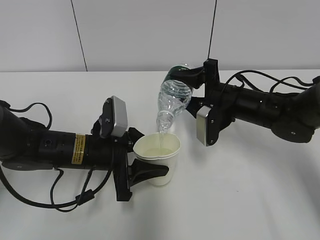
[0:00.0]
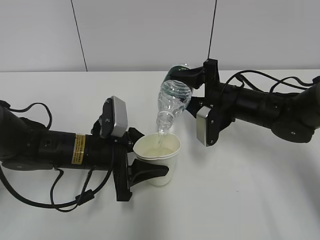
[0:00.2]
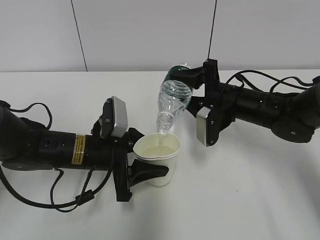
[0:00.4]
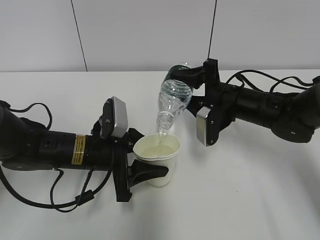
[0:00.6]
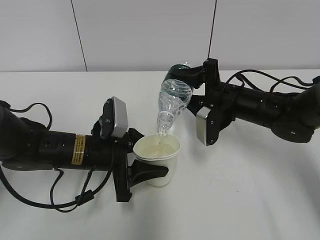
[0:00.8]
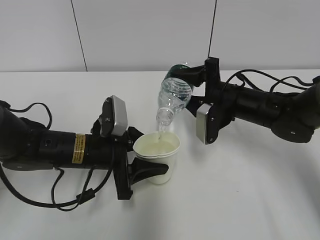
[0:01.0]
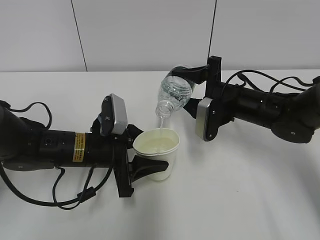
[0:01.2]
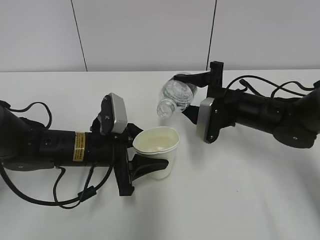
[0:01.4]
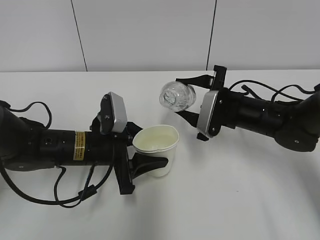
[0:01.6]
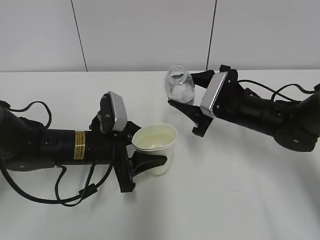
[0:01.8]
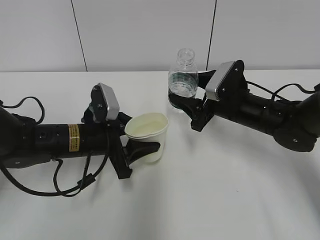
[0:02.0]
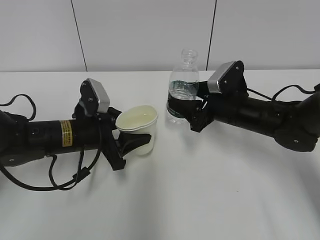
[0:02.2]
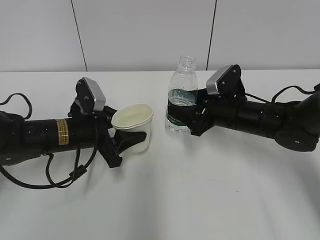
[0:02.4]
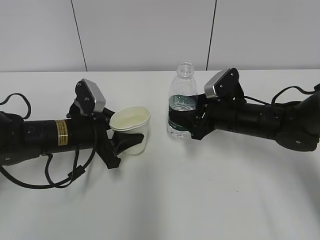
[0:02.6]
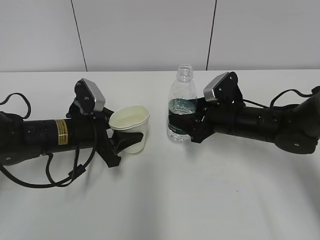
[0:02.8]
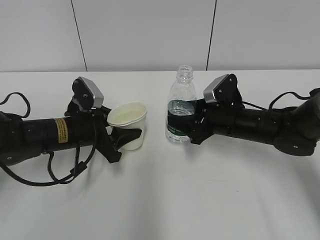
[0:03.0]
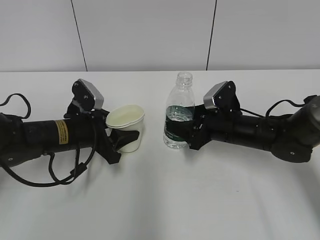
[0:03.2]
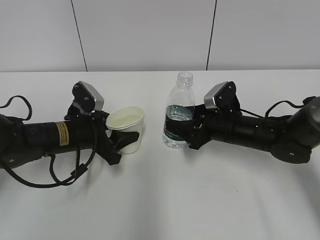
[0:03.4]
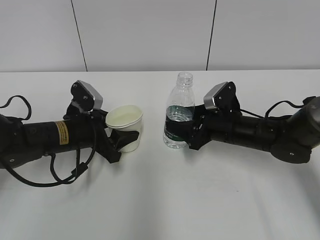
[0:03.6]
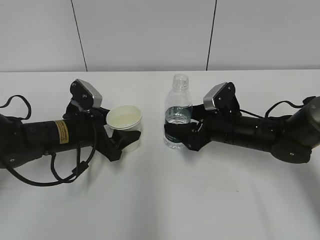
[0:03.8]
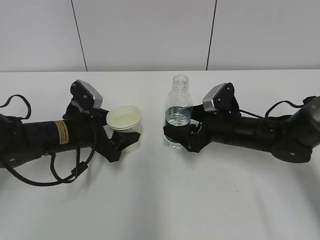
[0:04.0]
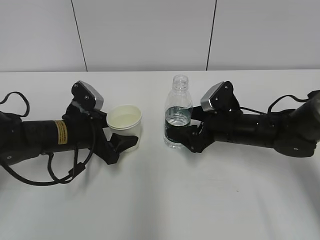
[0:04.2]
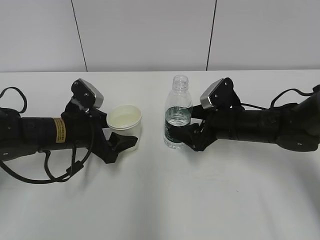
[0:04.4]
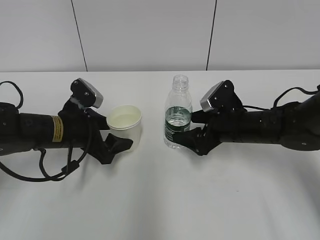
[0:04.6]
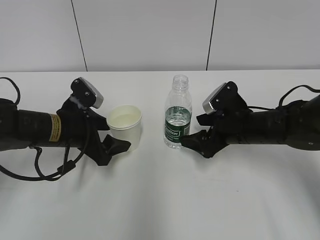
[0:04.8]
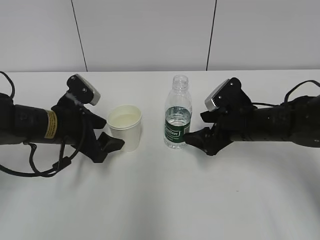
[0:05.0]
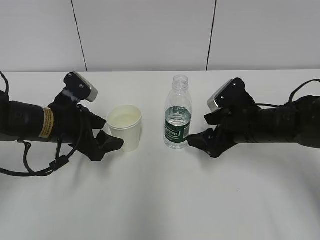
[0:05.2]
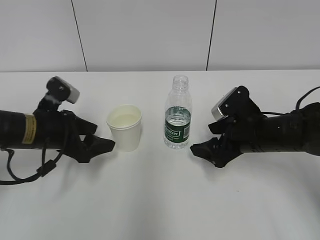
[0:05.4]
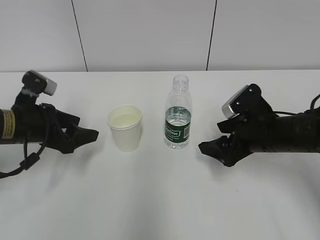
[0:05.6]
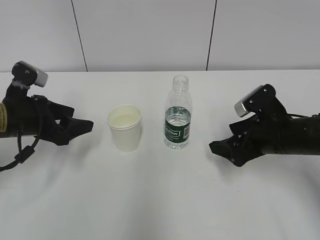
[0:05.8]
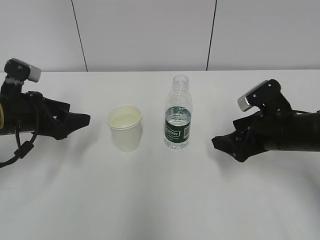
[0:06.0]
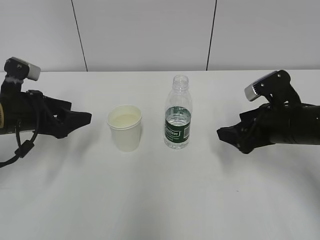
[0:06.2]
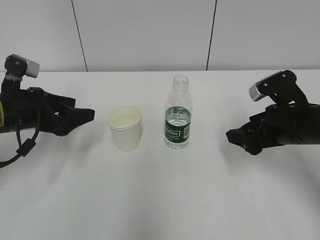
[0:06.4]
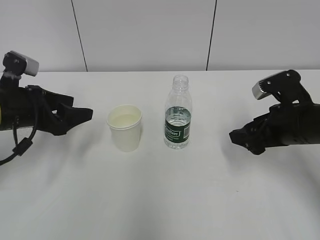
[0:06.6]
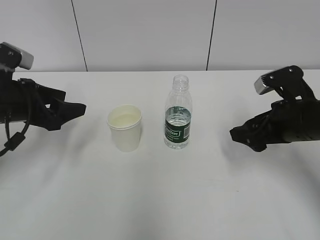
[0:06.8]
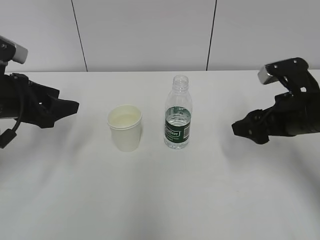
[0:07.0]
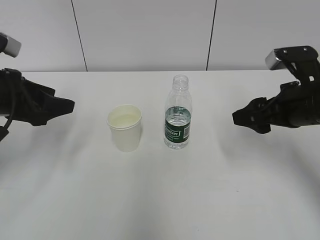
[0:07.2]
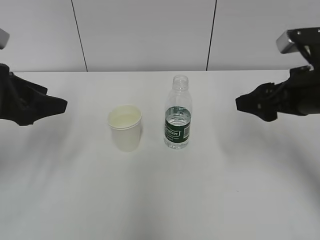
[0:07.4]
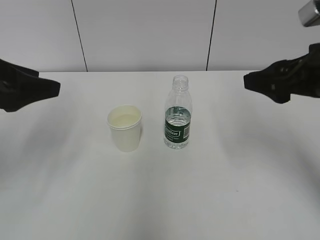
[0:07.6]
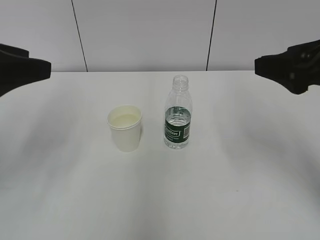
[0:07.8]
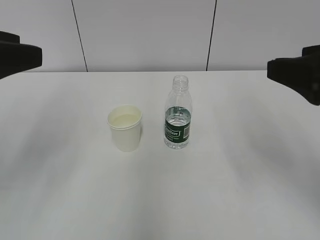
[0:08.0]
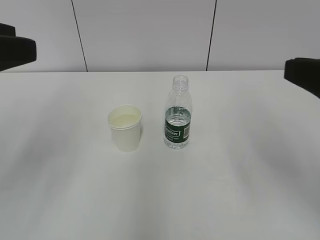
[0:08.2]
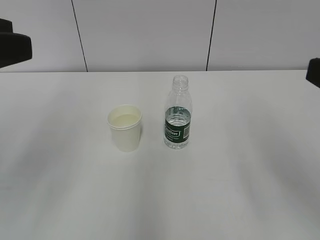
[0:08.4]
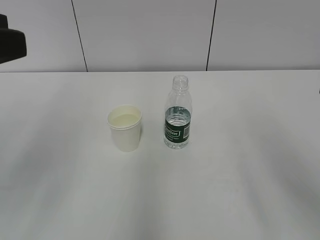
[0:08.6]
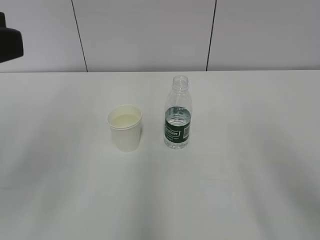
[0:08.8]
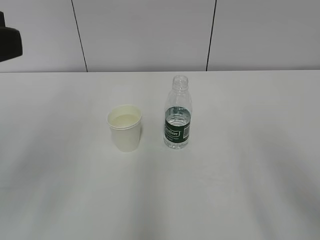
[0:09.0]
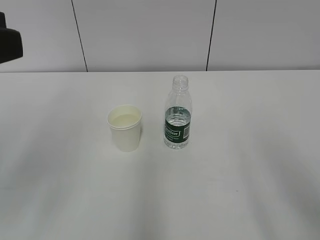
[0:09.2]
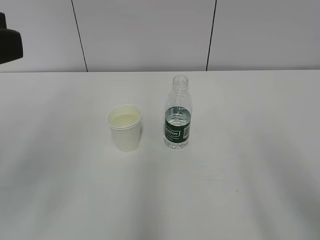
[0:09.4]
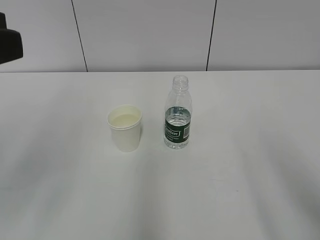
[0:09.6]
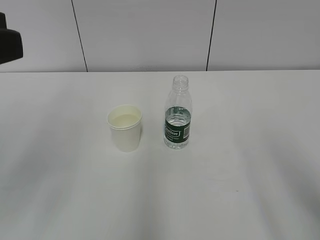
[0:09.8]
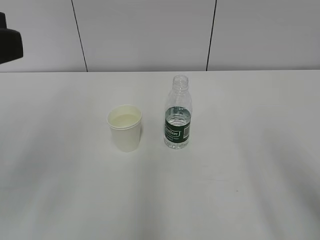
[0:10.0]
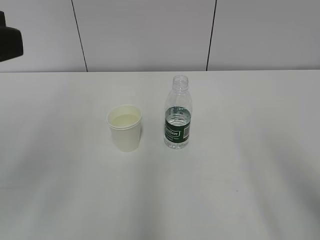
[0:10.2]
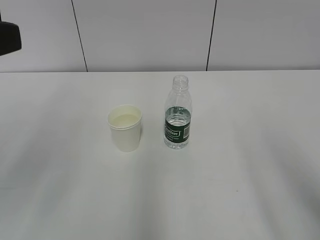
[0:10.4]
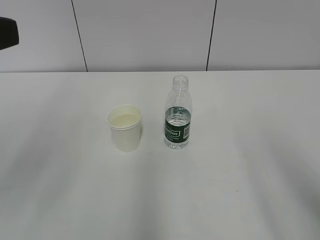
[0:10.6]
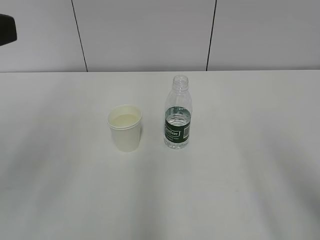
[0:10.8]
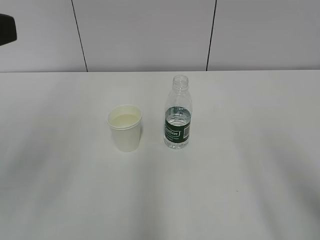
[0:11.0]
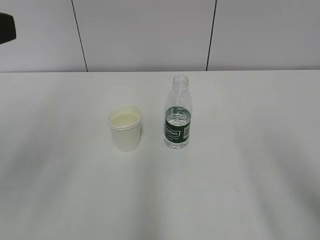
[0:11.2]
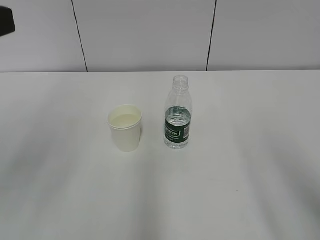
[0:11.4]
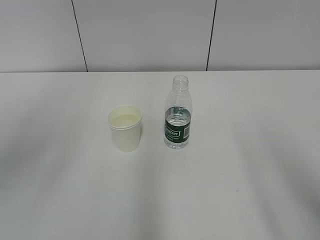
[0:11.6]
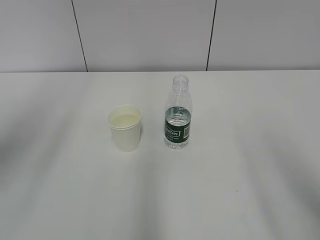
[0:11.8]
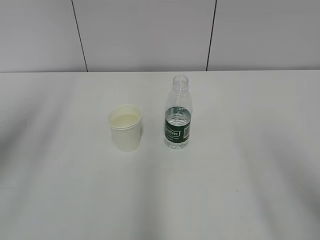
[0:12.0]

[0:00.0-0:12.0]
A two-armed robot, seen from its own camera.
0:01.6 to 0:03.0: The left gripper changes place by about 5 cm.
0:03.0 to 0:04.4: The left gripper opens up. Meanwhile the right gripper opens up.
0:04.4 to 0:06.0: The left gripper travels to the left by about 10 cm; the right gripper heads backward and to the right, covering some 10 cm.
0:06.0 to 0:07.6: The right gripper travels upward by approximately 15 cm. Meanwhile the left gripper travels upward and backward by some 15 cm.
0:07.6 to 0:09.0: The left gripper heads backward and upward, covering some 15 cm; the right gripper is displaced backward by approximately 20 cm.
0:10.4 to 0:12.0: The left gripper changes place by roughly 5 cm.

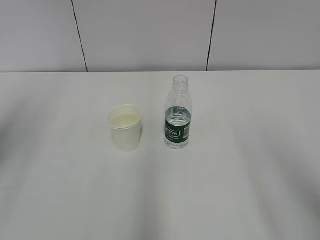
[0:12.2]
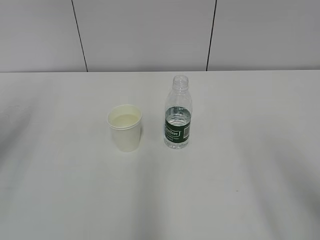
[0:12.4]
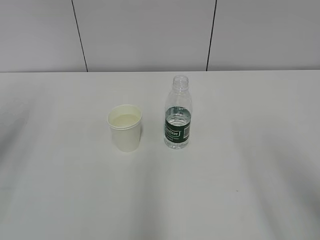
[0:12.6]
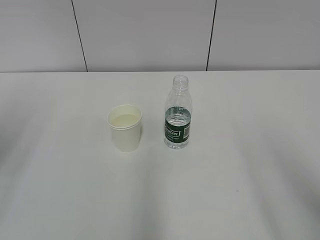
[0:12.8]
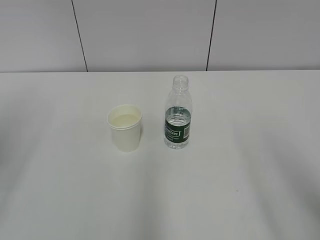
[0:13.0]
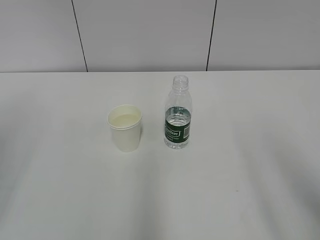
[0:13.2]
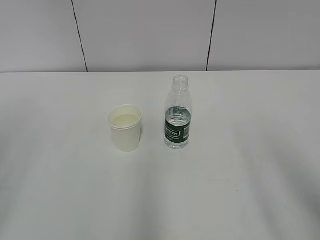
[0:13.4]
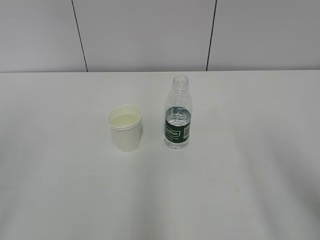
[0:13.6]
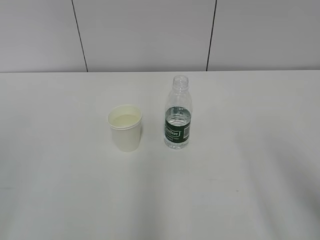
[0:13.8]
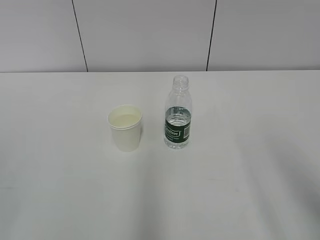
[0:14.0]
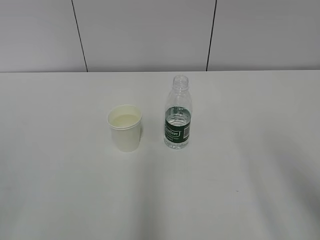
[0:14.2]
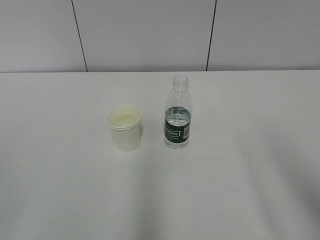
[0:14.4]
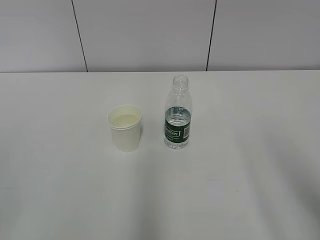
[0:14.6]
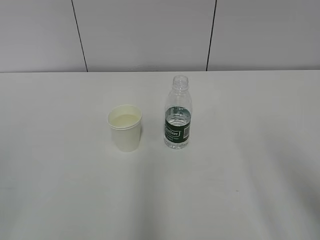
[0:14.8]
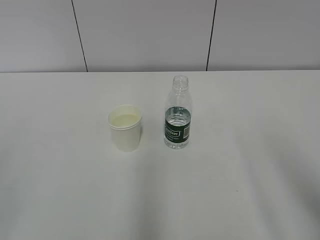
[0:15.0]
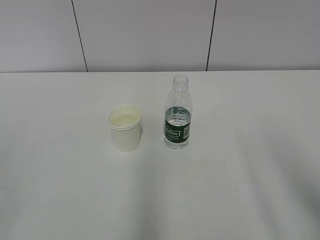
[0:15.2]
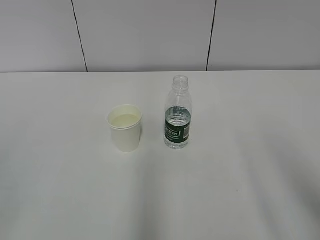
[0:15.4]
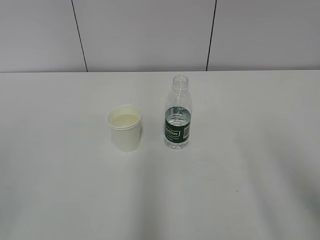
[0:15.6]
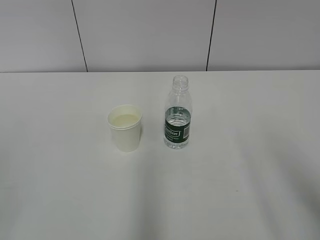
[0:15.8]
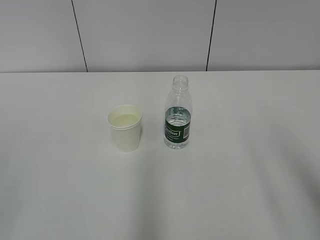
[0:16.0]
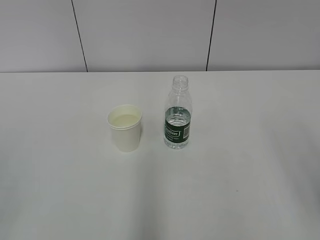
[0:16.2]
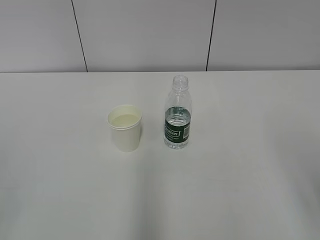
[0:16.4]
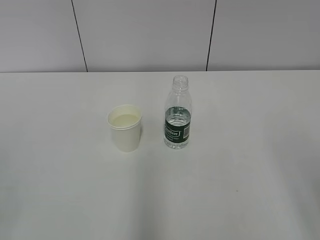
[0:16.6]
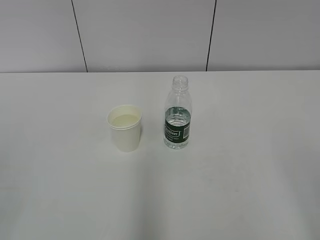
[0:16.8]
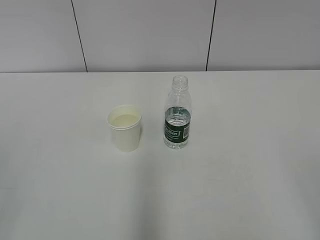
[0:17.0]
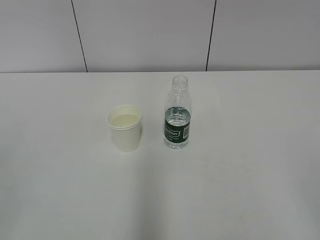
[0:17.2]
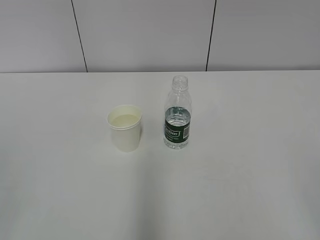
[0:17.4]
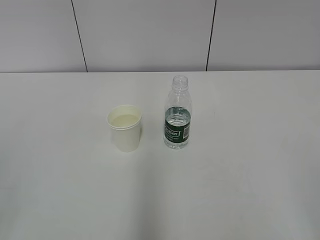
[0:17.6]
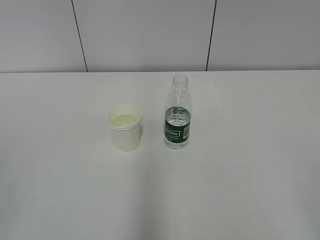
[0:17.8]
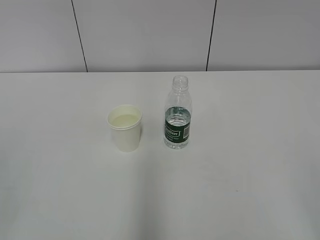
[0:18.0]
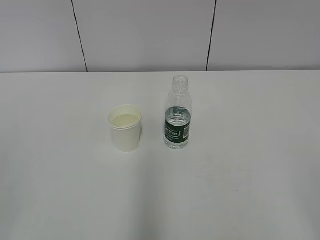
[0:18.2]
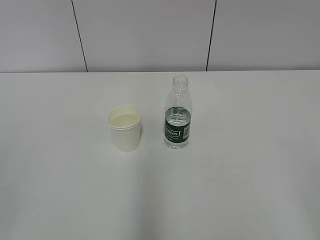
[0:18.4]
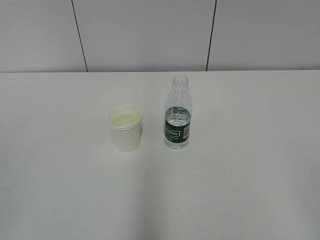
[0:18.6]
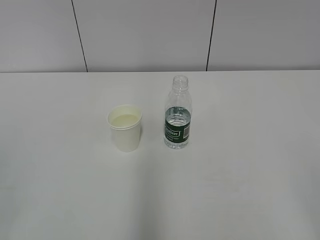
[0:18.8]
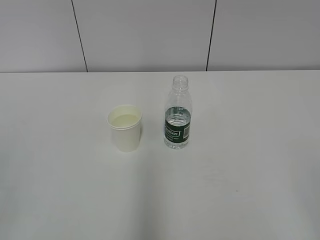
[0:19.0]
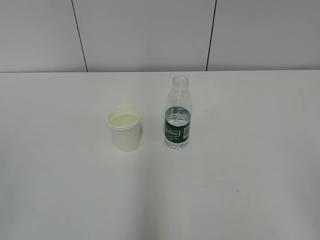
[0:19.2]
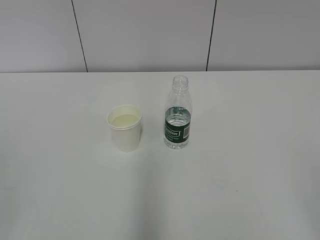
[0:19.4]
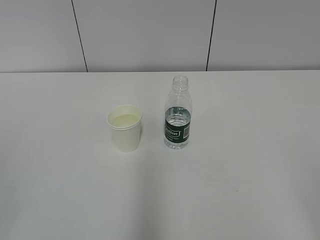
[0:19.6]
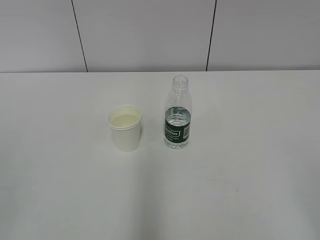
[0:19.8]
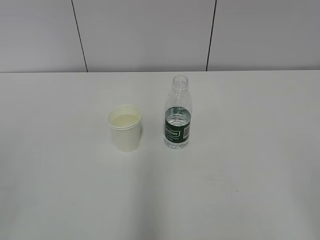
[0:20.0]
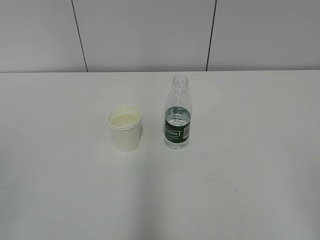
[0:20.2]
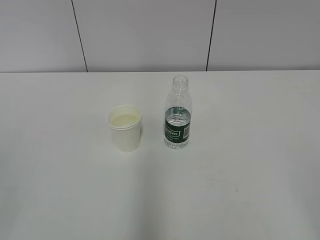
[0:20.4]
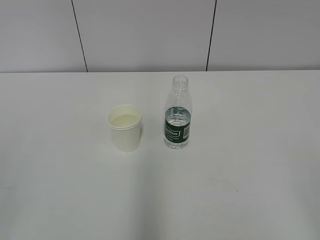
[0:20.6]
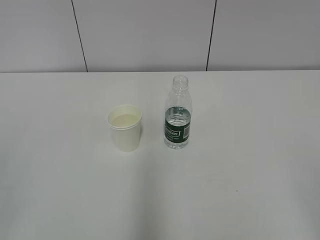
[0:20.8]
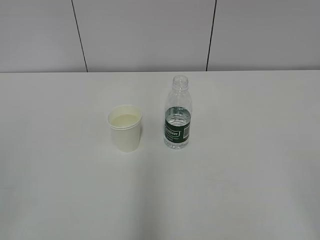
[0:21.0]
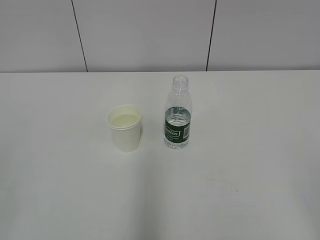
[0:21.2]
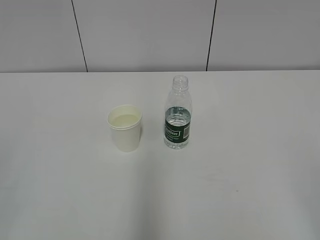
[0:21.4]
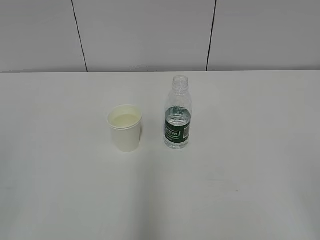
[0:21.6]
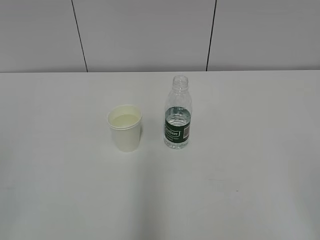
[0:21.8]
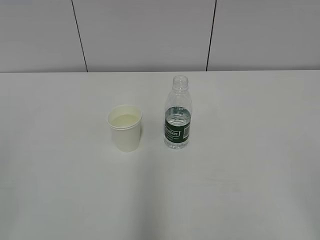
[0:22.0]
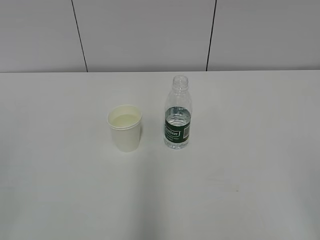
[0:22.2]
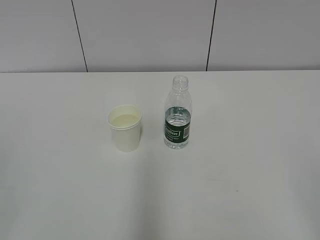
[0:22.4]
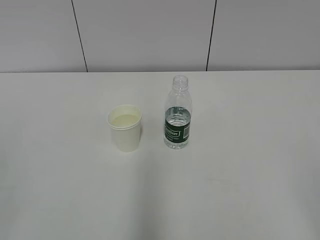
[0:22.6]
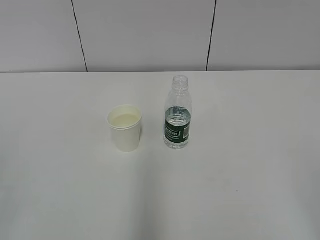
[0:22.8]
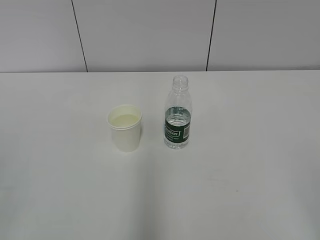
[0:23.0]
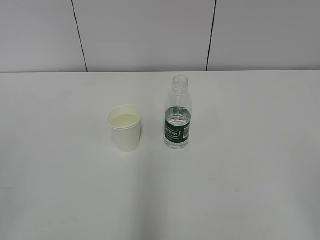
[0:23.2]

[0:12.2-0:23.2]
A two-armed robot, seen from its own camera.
0:12.2 to 0:13.8: The left gripper moves backward, approximately 20 cm.
0:18.4 to 0:23.2: Both grippers stay about where they are.
